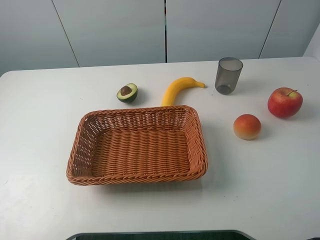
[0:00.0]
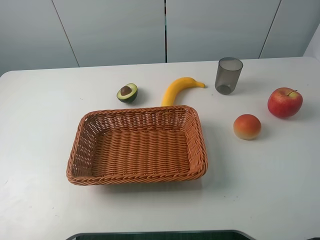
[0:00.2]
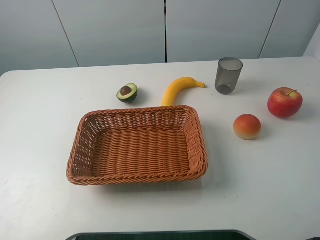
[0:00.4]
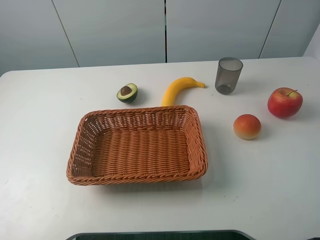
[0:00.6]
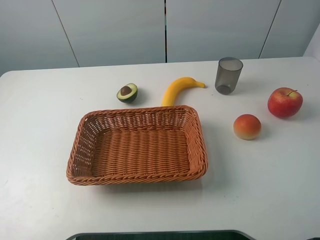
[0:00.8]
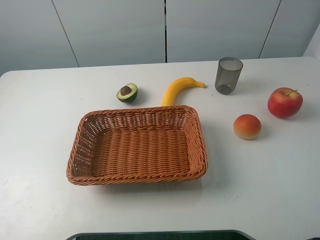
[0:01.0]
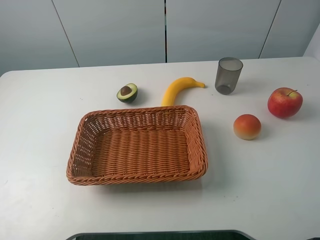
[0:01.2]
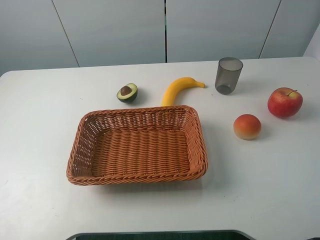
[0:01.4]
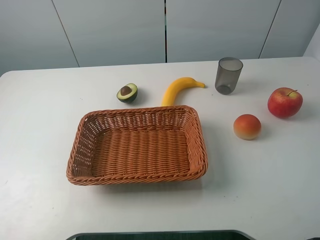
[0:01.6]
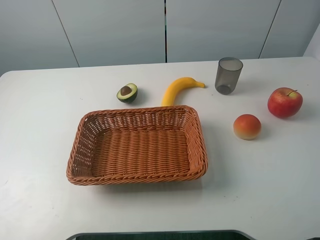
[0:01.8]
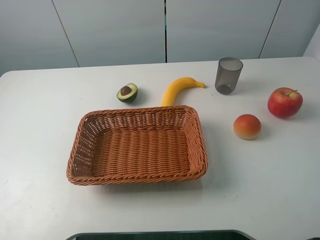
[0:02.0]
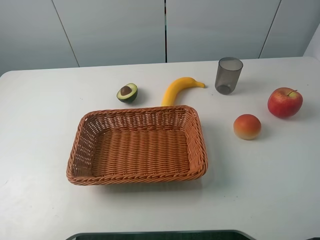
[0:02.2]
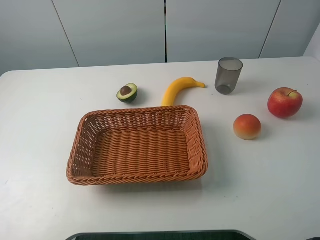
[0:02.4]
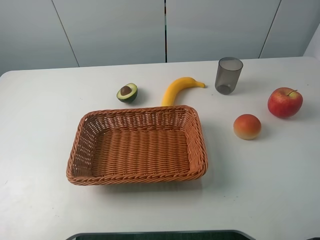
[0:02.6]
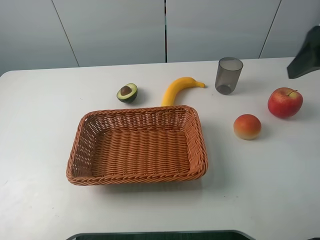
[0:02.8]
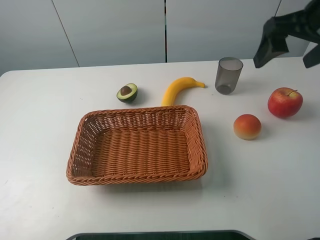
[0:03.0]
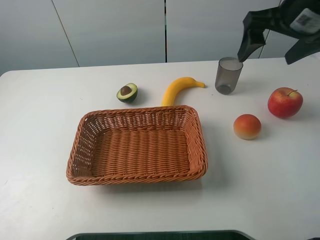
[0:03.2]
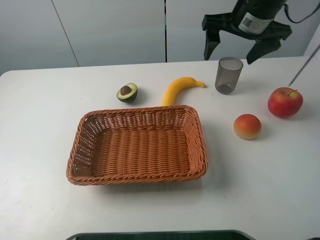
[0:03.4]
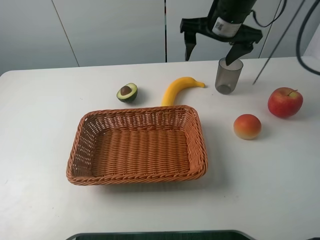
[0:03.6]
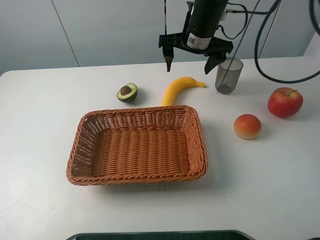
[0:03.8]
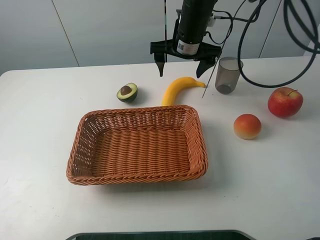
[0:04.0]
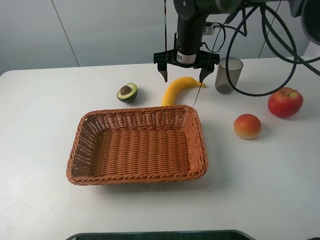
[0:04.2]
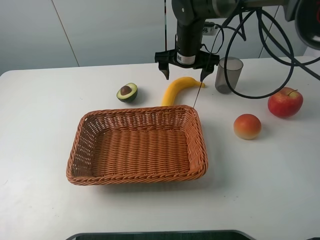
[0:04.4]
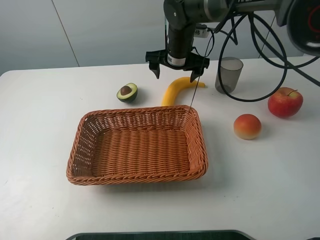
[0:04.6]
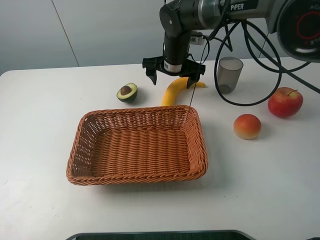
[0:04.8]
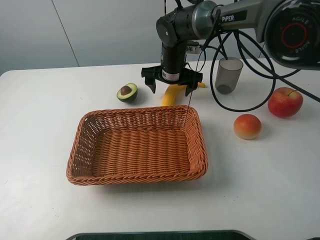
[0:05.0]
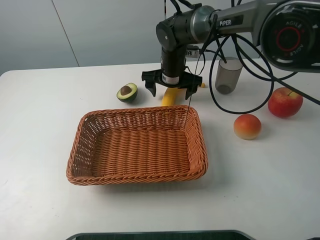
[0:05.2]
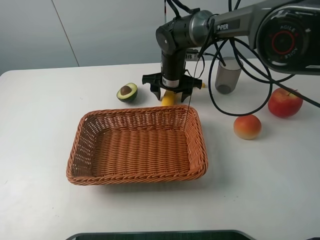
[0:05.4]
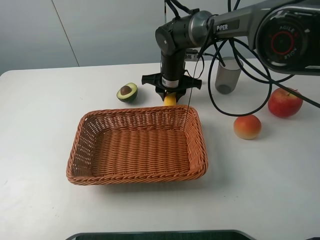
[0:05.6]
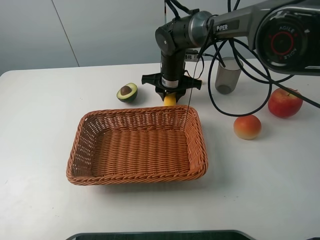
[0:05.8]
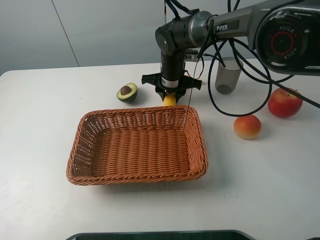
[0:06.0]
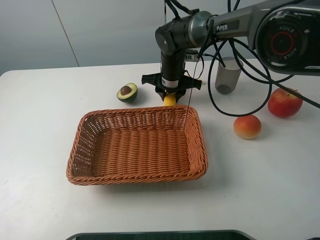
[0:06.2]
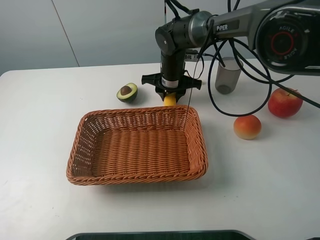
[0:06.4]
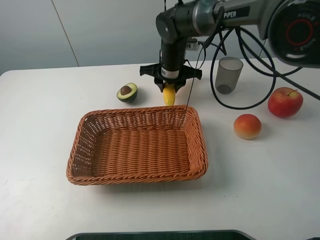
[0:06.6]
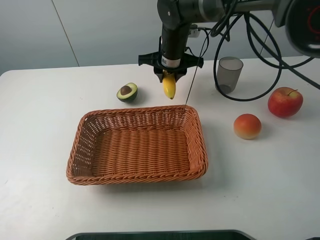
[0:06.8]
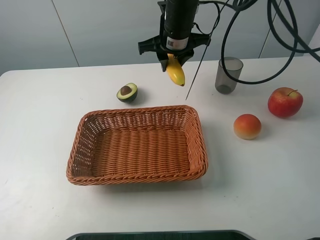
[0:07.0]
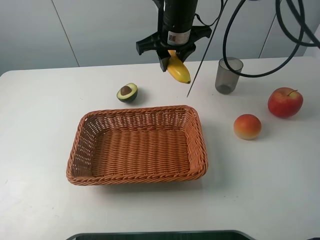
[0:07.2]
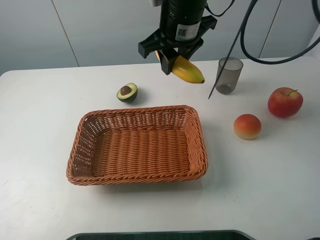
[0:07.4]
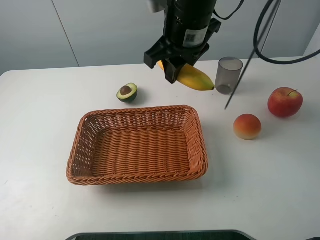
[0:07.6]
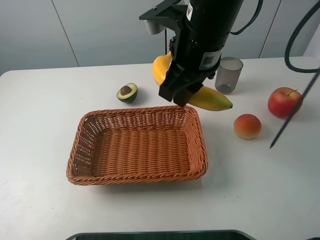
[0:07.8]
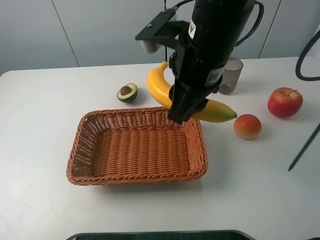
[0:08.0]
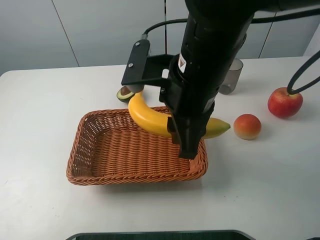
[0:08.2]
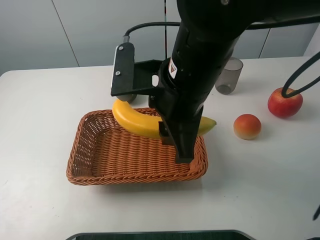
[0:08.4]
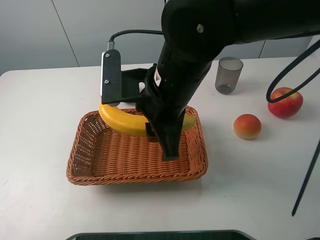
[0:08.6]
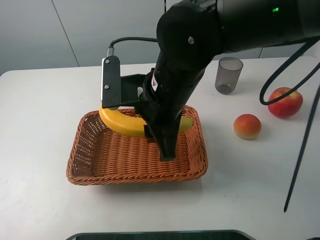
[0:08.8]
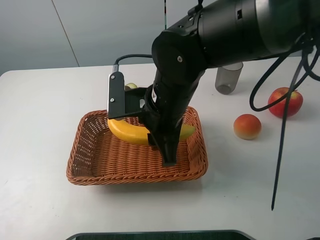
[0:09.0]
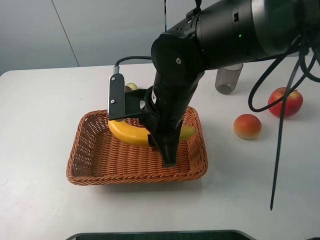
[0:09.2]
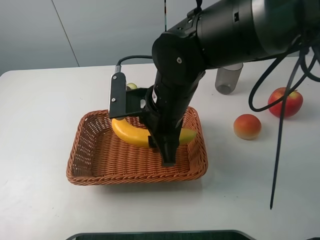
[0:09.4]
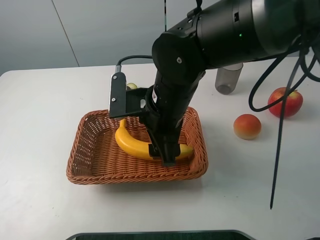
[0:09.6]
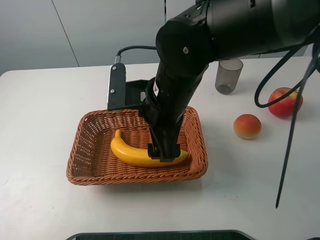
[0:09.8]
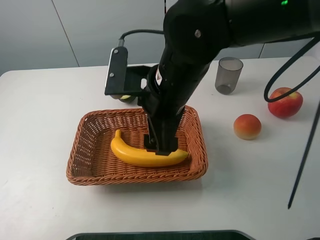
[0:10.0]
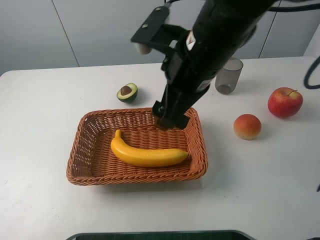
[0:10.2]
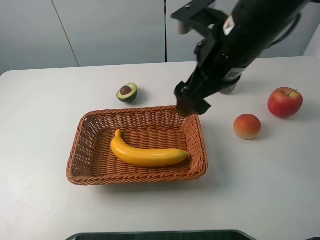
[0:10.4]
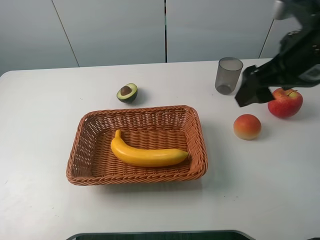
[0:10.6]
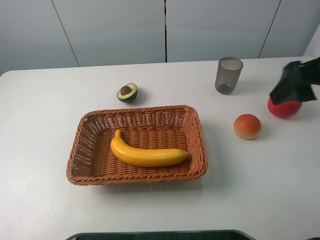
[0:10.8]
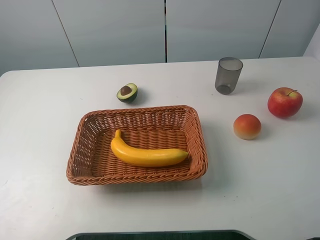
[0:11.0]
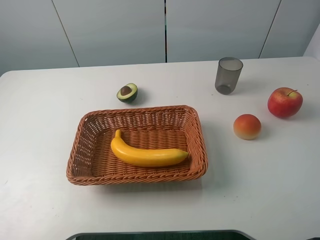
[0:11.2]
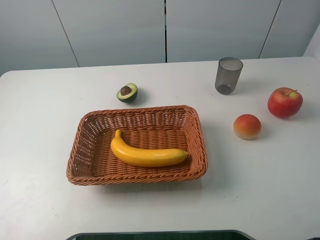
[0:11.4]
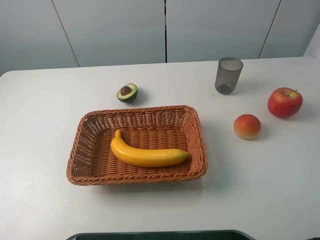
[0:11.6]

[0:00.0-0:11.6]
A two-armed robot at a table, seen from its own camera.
Task of the whole recording: randomly pick up an item from the table and put it in the basket.
Step, 0:00.0 to 0:05.6: Grasp the banana with the right gripper.
Step, 0:05.8 to 0:10.0: Place the banana into the basket with the right gripper.
0:00.0 to 0:01.4: The two grippers keep their place.
0:01.4 to 0:02.8: The right gripper shifts about 20 cm forward.
0:02.8 to 0:04.4: The right gripper travels forward, to the left and downward by roughly 35 cm.
0:04.4 to 0:05.8: The right gripper goes approximately 5 cm downward, and closes its fingers.
0:05.8 to 0:07.2: The right gripper travels upward by about 15 cm.
0:07.2 to 0:08.8: The right gripper heads backward, covering approximately 15 cm.
0:08.8 to 0:10.2: The right gripper heads upward and to the right, covering about 5 cm, and opens up.
0:10.2 to 0:11.6: The right gripper heads to the right and backward, covering approximately 30 cm.

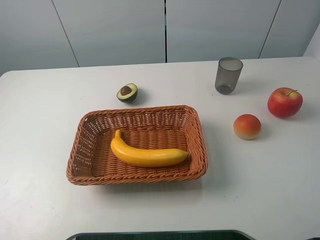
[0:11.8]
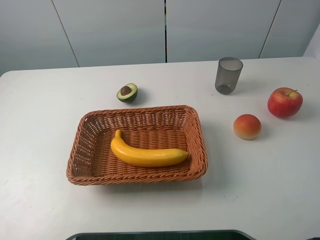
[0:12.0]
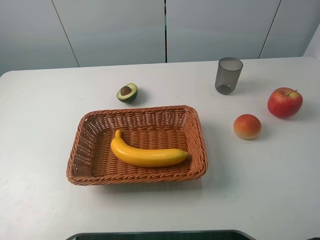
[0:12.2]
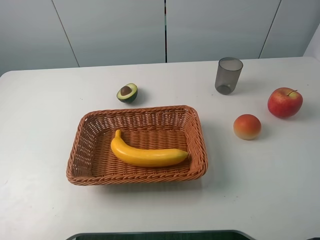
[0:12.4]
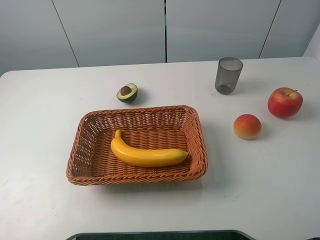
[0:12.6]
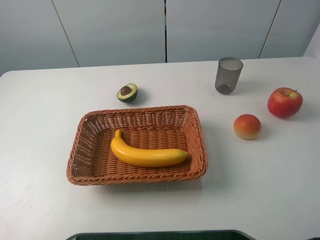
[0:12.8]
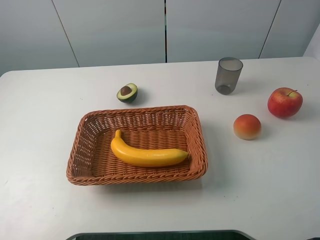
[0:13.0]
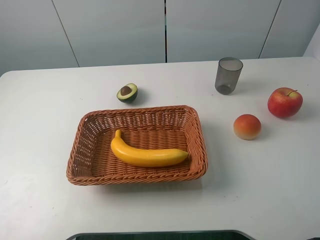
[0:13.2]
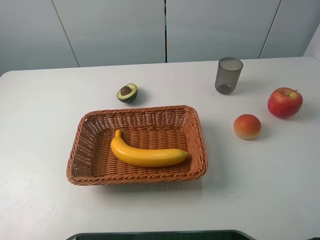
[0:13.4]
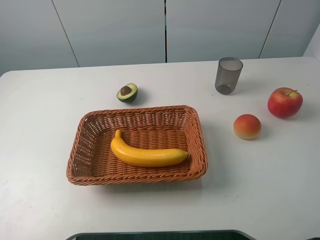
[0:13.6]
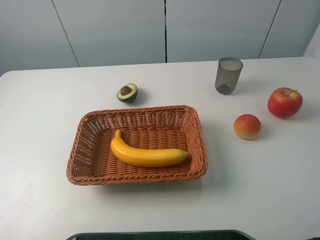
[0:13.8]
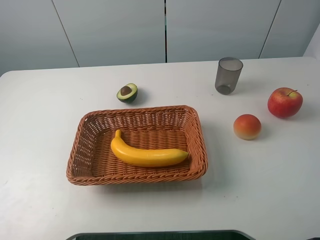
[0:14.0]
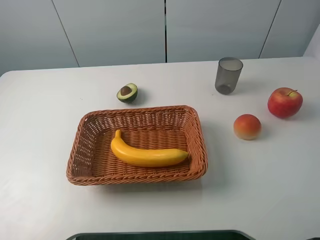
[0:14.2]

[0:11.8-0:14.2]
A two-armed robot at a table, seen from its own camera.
Task of the whole recording: randomly pick up an item from the table and put it in the basket.
0:13.0 to 0:14.2: Both grippers stay about where they are.

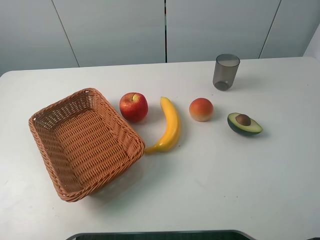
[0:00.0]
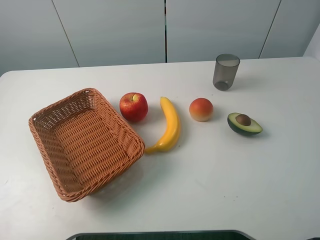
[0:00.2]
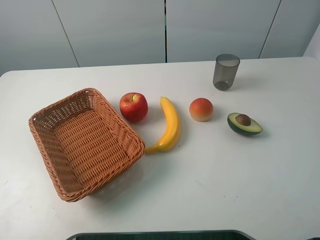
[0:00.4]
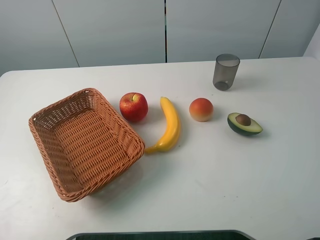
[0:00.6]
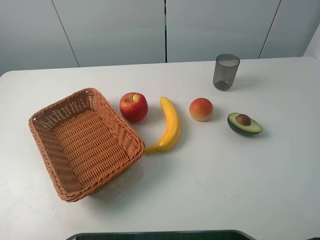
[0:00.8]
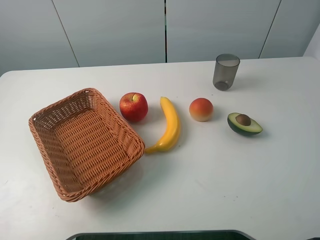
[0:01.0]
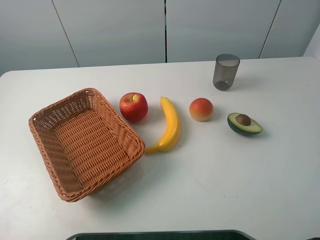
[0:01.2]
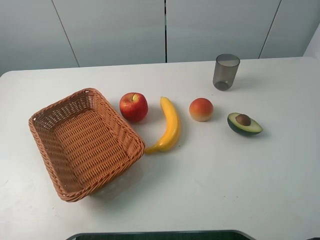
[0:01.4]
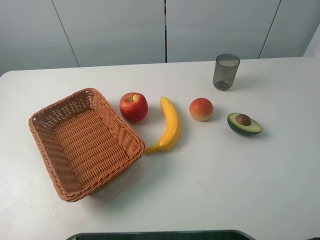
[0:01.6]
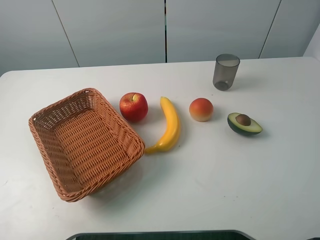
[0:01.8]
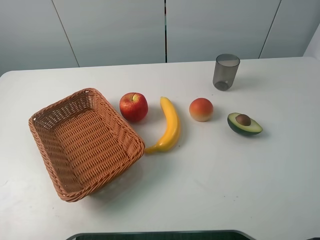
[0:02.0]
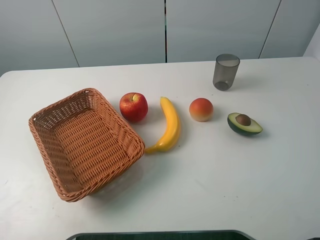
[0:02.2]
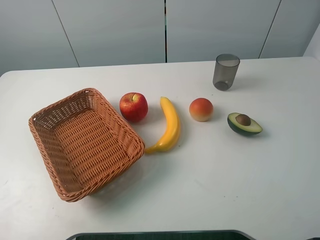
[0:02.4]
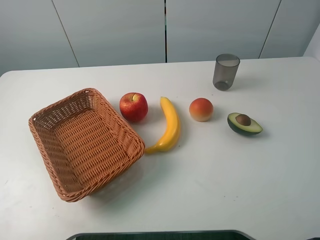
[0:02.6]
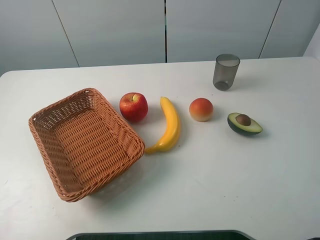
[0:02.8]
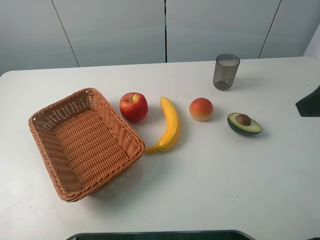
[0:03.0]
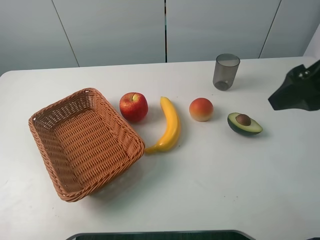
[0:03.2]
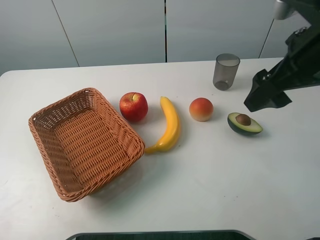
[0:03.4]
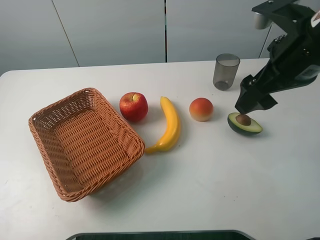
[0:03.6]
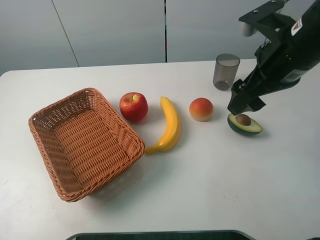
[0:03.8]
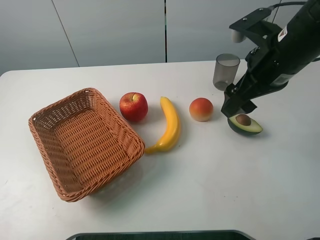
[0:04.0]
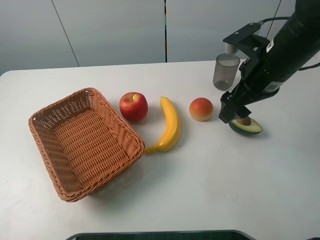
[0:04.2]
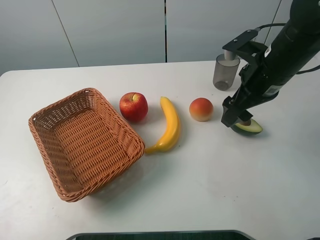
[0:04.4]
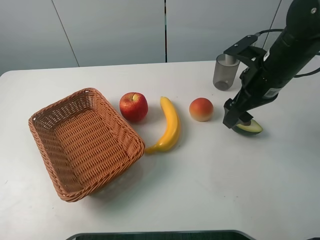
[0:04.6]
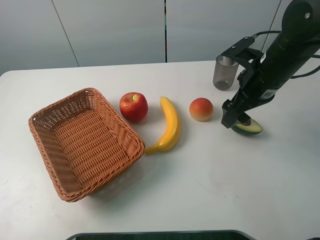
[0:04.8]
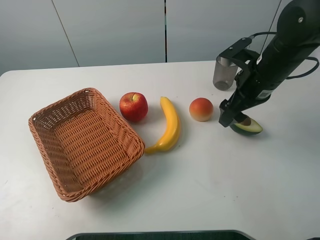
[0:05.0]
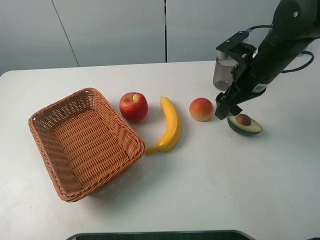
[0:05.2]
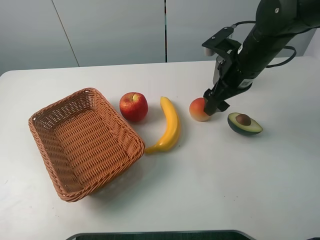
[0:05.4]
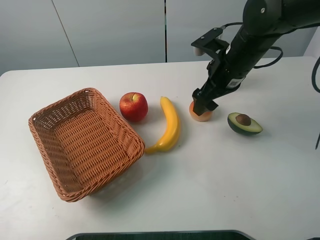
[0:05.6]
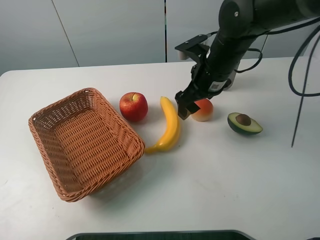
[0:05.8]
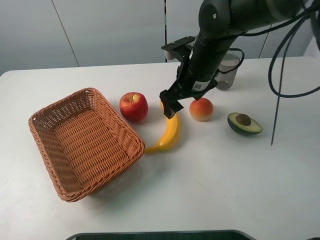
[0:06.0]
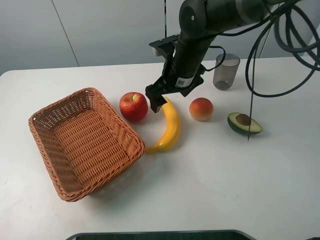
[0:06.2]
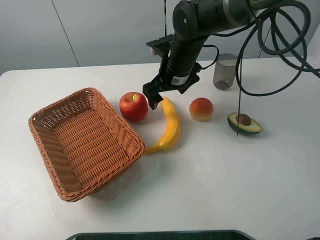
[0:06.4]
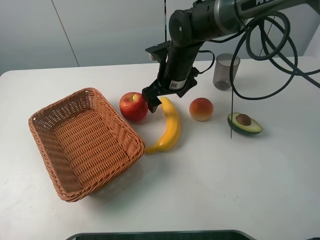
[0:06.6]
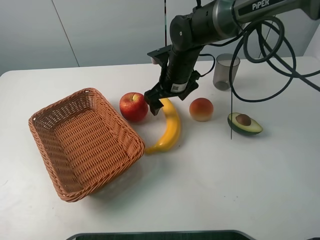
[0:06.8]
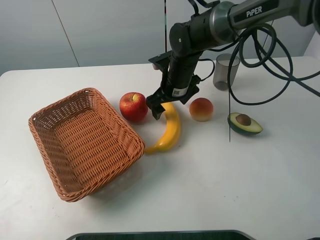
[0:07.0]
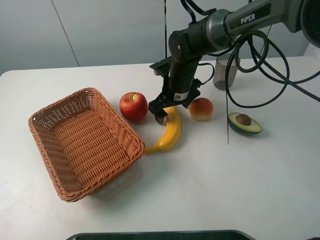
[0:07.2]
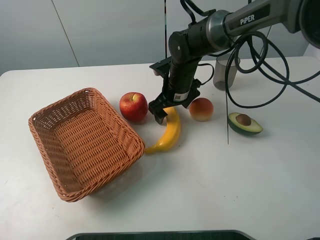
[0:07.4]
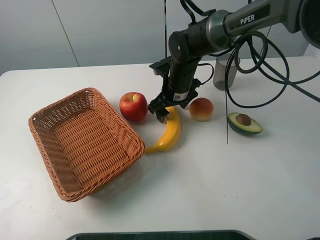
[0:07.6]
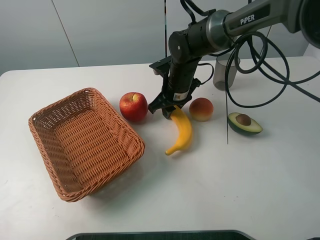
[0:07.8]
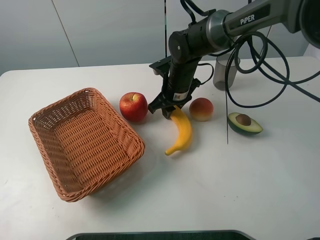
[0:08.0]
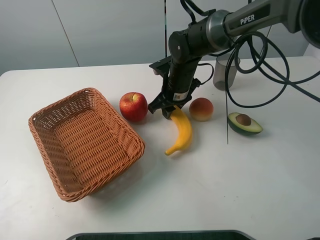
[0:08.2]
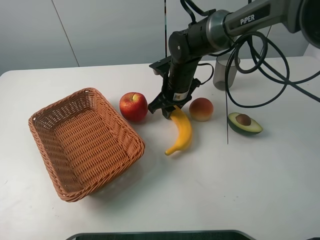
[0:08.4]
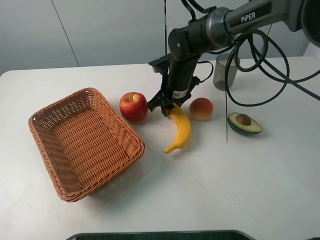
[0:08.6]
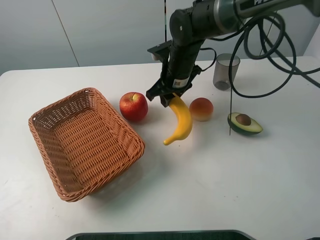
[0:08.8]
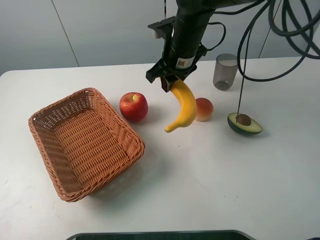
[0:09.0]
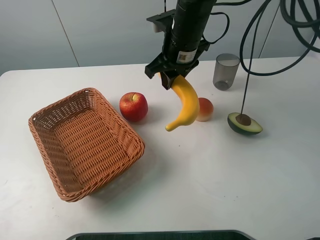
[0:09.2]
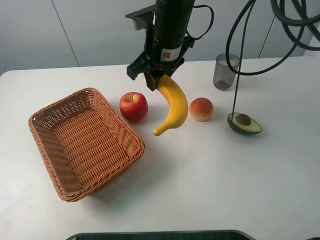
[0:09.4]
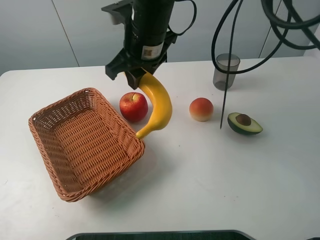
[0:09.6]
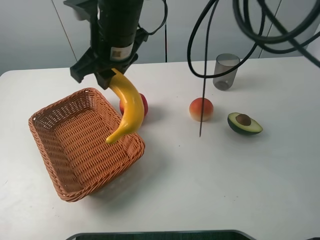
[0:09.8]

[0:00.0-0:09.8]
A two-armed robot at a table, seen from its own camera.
Task of the whole recording: randomly pick up an item from the table and put it in the basket.
Step, 0:00.0 to 0:07.8: Grasp the banana with the right gripper.
0:00.0 to 0:01.4: Both grippers stay about where they are.
0:02.8 to 0:04.2: The right gripper shifts approximately 20 cm forward, to the left and downward.
0:04.2 to 0:05.6: The right gripper changes place by some 5 cm.
0:05.6 to 0:07.0: The right gripper heads to the left, downward and forward, covering about 15 cm.
0:07.0 to 0:08.4: The right gripper closes its fingers.
0:08.4 to 0:09.8: The right gripper shifts some 20 cm upward, to the left and backward.
